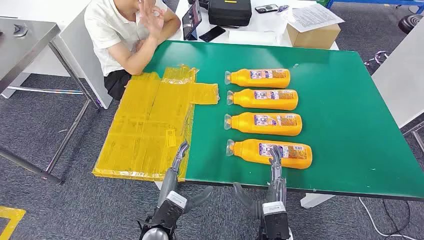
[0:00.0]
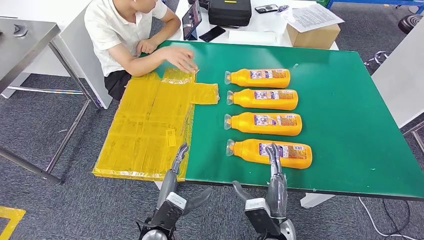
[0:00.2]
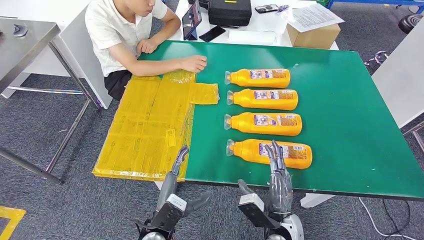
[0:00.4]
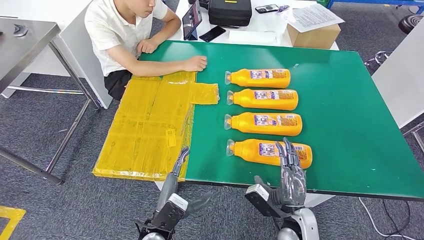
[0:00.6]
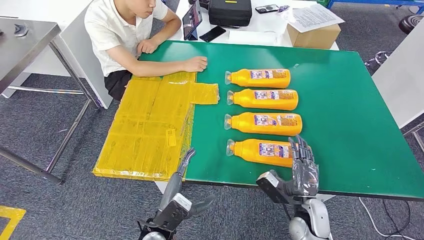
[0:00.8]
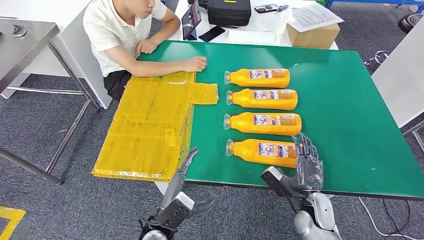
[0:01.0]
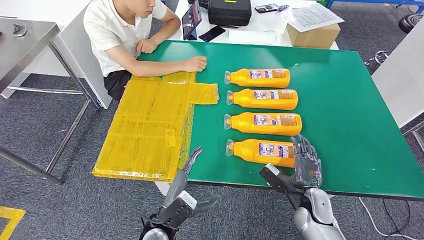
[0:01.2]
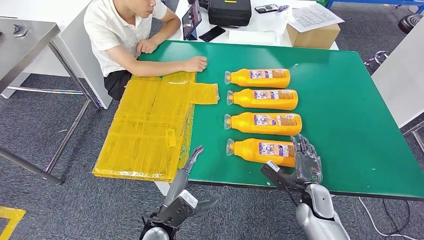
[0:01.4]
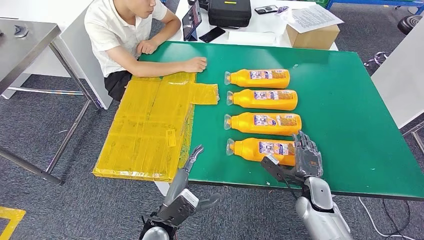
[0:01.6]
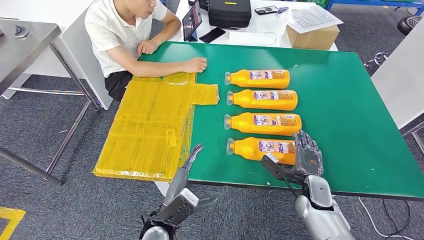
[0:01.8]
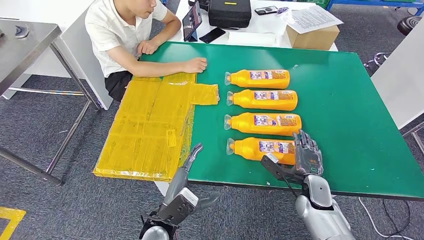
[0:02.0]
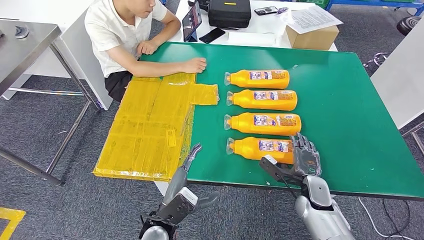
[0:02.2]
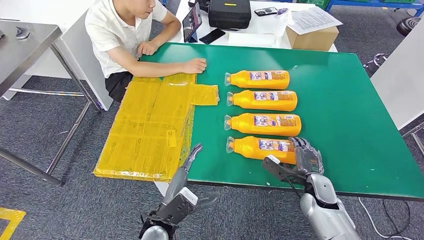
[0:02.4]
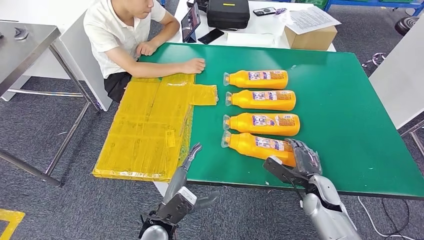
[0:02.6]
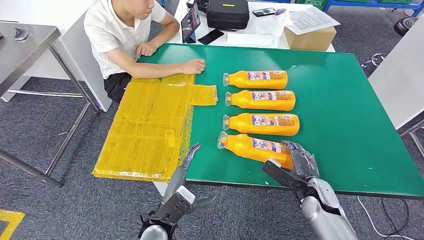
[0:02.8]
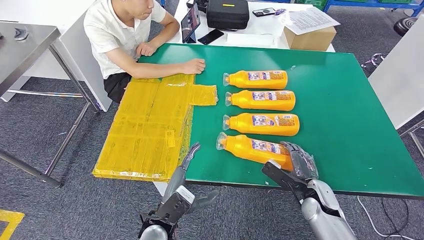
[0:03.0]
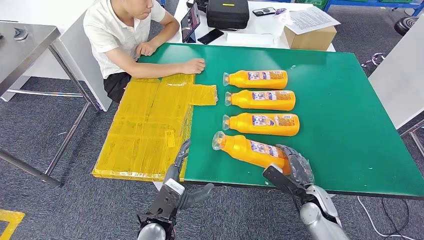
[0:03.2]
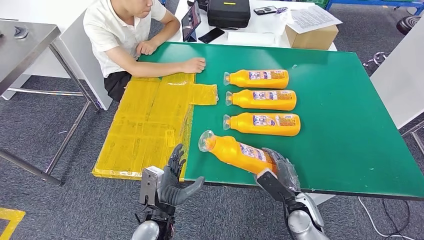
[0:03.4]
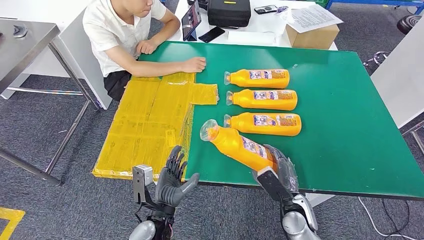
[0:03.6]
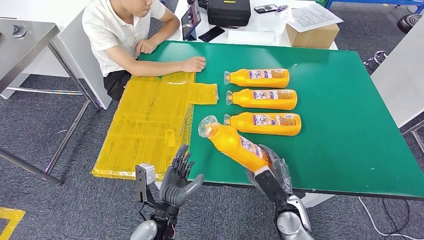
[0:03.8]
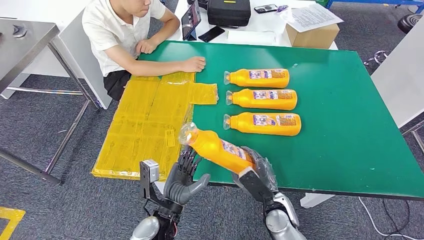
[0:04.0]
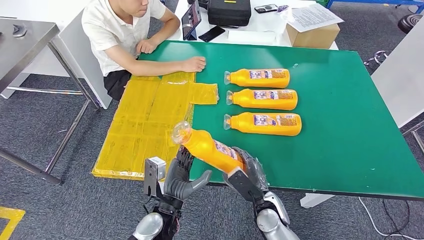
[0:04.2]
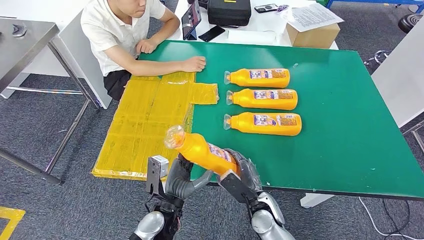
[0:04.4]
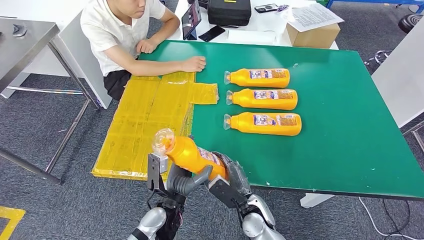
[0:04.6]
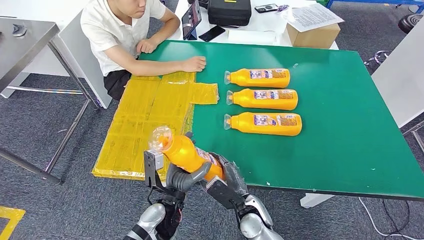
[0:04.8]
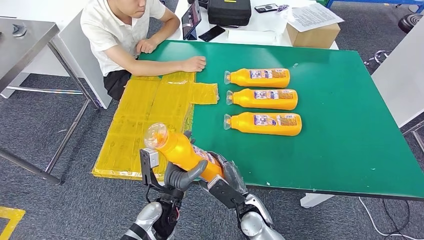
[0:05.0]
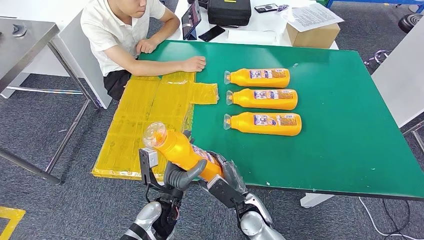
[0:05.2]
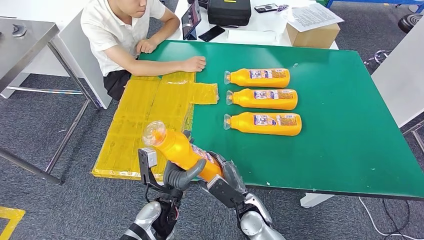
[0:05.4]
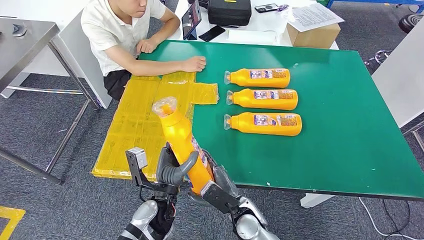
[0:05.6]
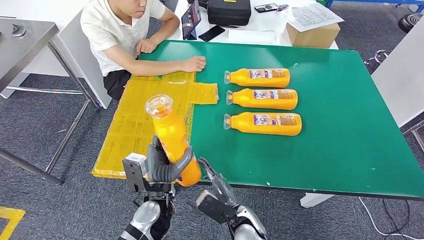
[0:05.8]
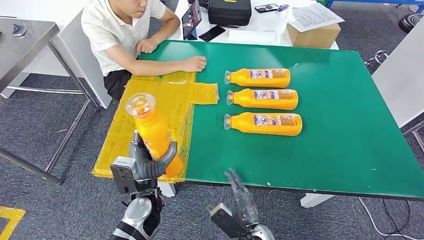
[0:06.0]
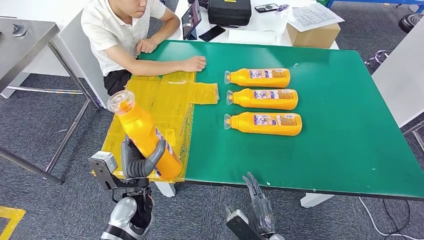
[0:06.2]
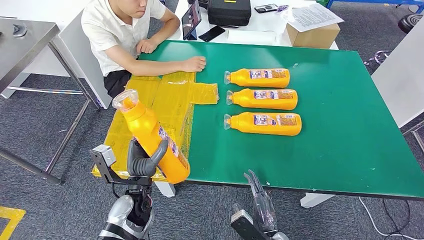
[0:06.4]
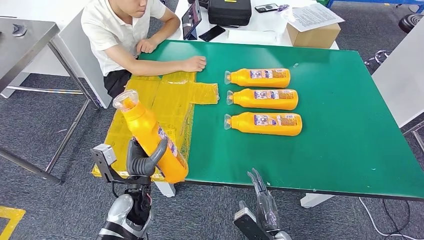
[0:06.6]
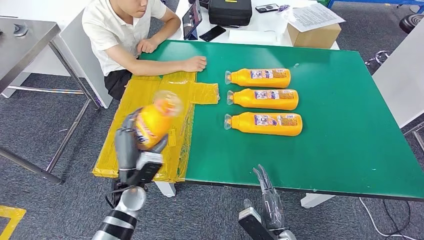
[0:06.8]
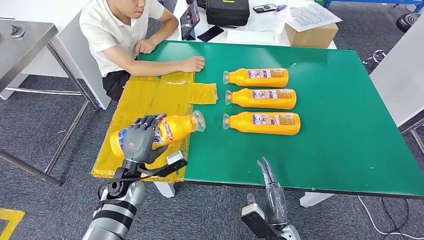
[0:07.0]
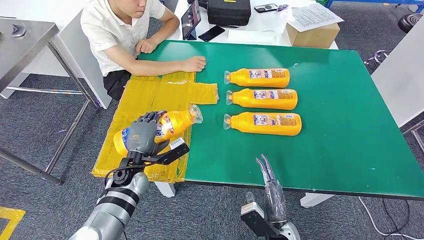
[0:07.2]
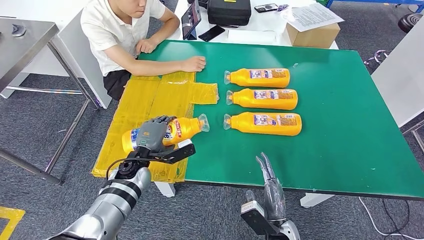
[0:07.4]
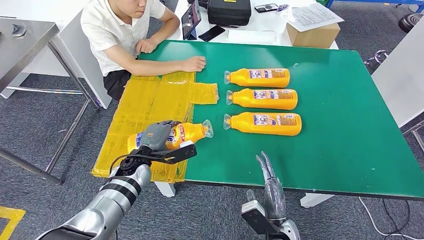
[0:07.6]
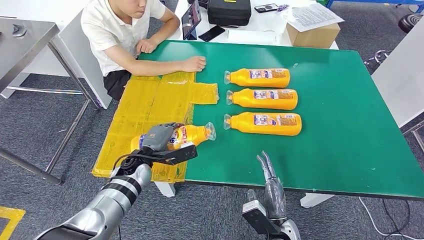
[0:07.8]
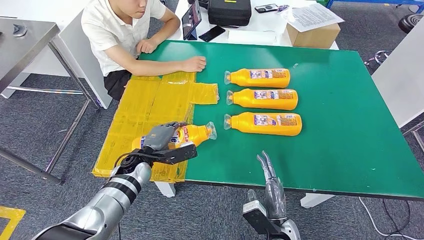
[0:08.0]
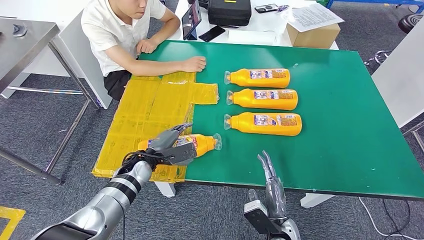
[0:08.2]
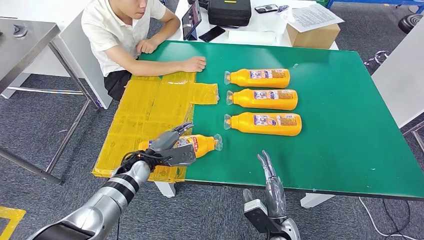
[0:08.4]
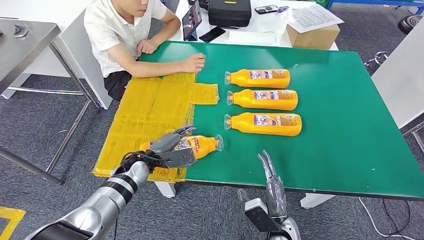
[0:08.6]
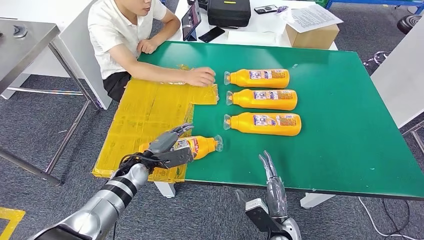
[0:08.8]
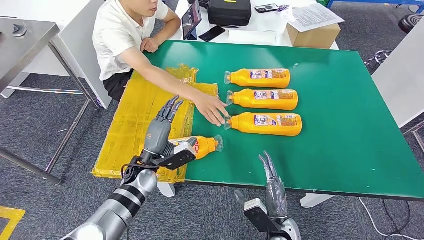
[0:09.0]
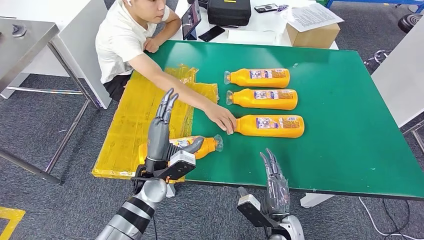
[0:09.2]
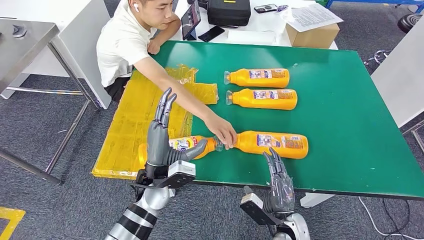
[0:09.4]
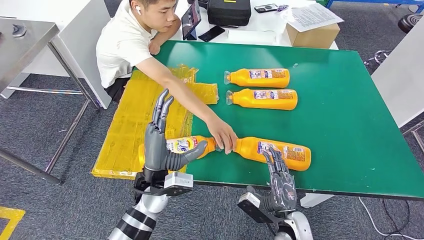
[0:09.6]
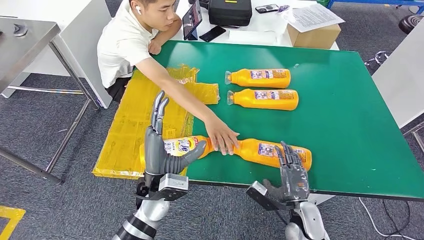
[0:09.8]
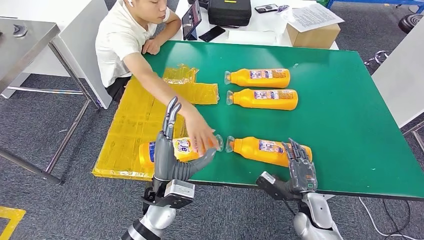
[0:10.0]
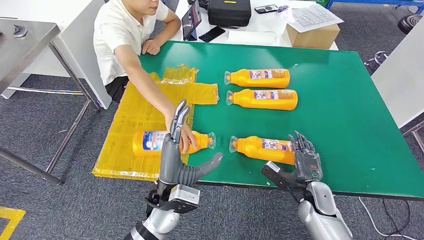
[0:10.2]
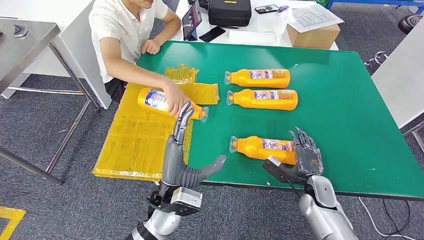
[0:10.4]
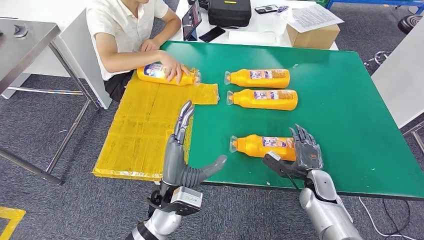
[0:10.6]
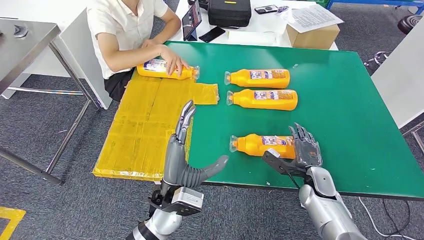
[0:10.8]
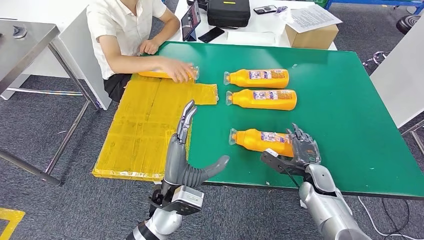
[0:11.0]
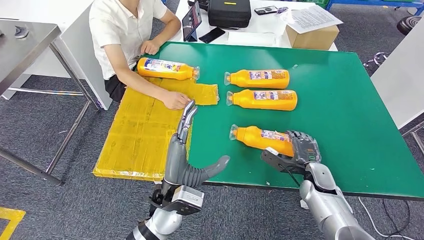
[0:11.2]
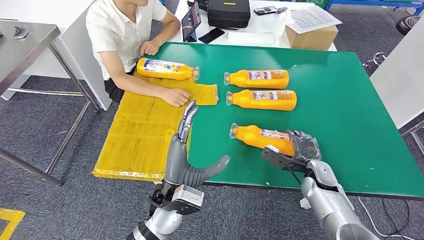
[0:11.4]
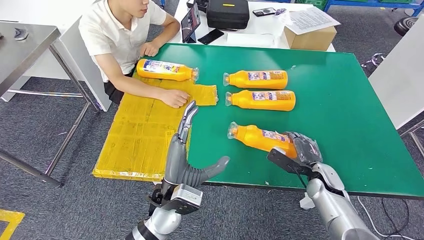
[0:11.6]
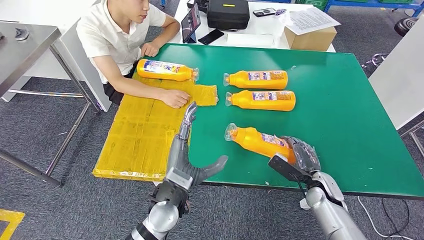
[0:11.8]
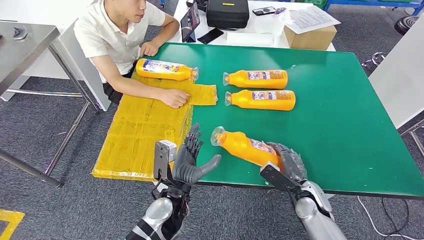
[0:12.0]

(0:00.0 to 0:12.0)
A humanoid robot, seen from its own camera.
Step, 0:00.0 - 0:04.8: Take the fast-moving consumer goods bottle from the table.
Step, 0:05.0 - 0:08.8: Flip the fast-moving consumer goods bottle to the front side.
0:04.4 - 0:06.0: The right hand heads backward, covering about 10 cm. Meanwhile the left hand moves about 5 cm.
0:06.0 - 0:07.6: The left hand travels forward and to the left by approximately 10 cm. Meanwhile the right hand goes approximately 5 cm to the right.

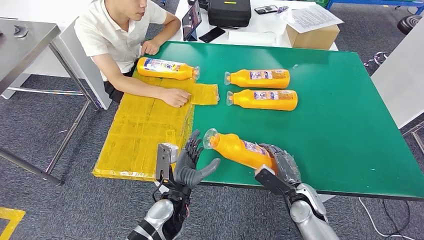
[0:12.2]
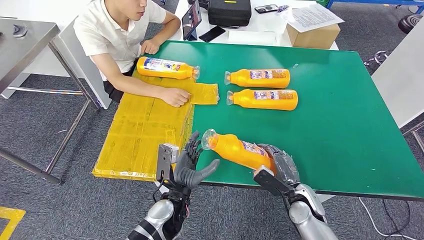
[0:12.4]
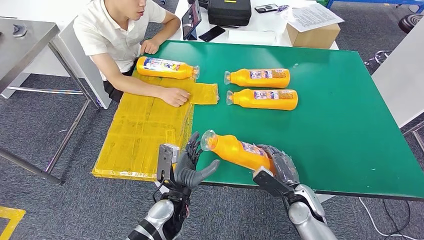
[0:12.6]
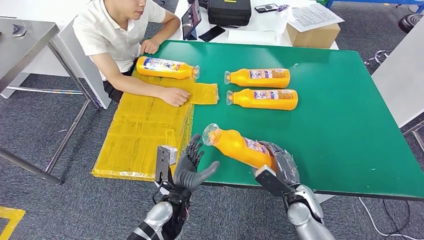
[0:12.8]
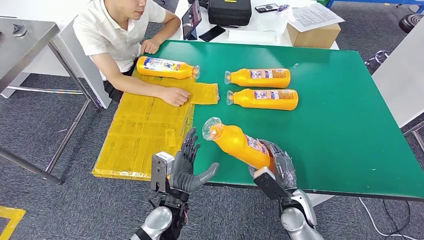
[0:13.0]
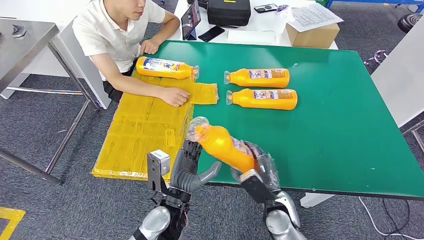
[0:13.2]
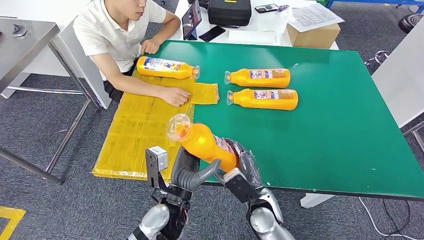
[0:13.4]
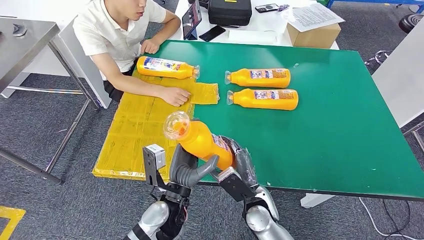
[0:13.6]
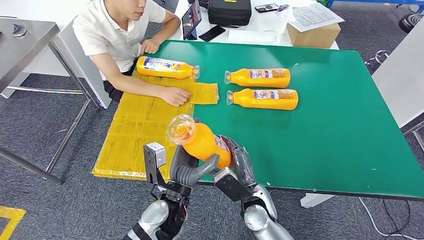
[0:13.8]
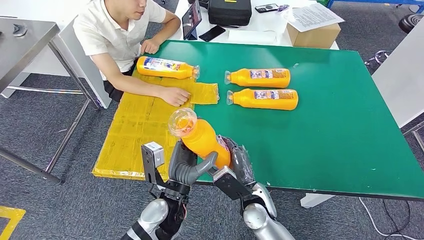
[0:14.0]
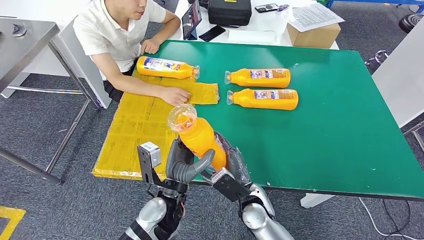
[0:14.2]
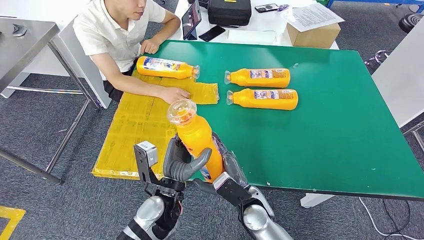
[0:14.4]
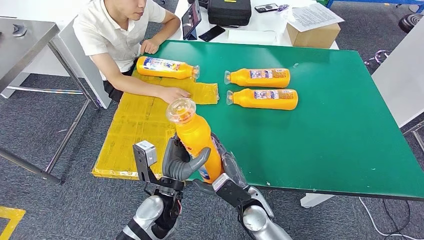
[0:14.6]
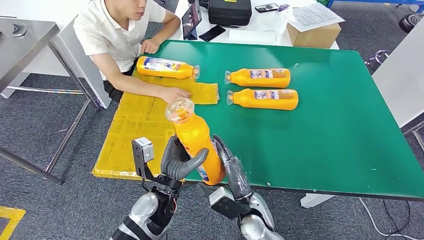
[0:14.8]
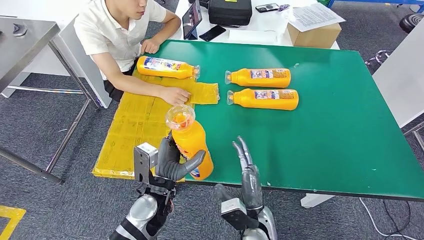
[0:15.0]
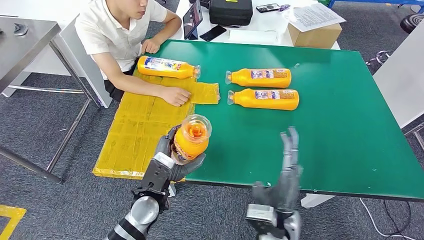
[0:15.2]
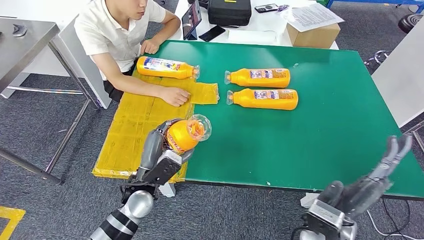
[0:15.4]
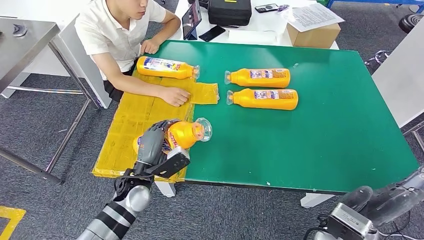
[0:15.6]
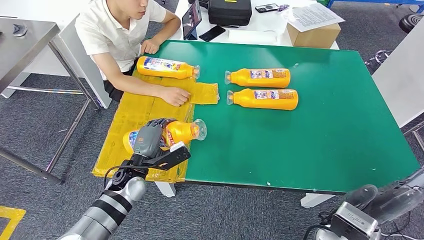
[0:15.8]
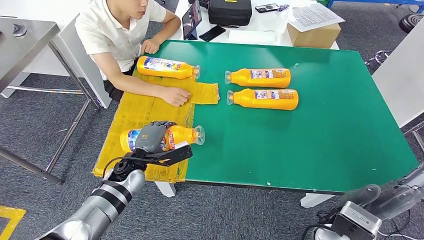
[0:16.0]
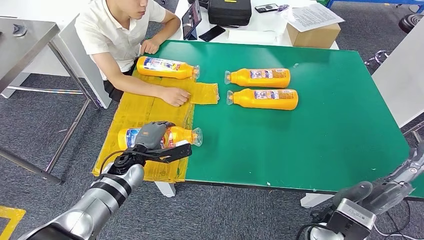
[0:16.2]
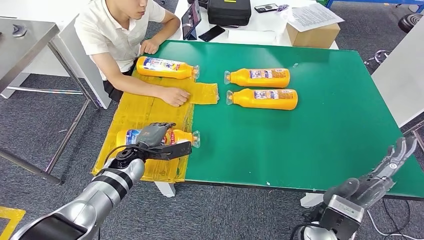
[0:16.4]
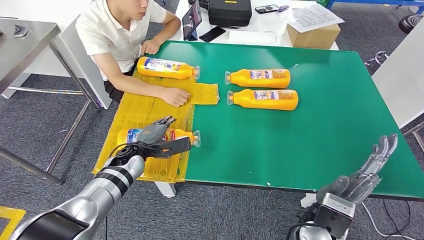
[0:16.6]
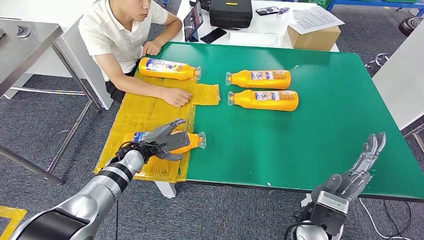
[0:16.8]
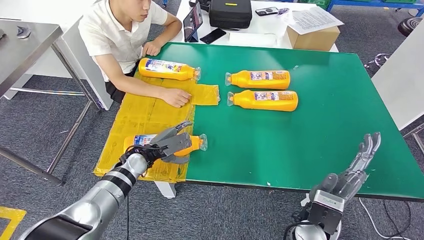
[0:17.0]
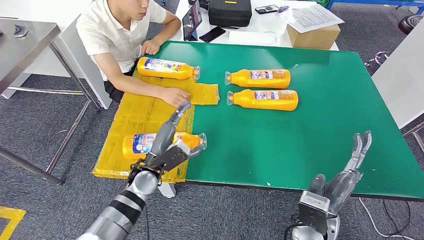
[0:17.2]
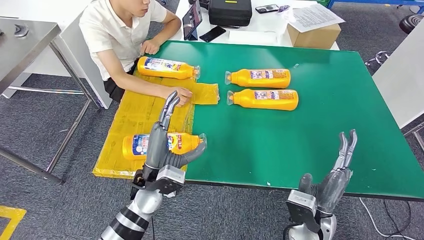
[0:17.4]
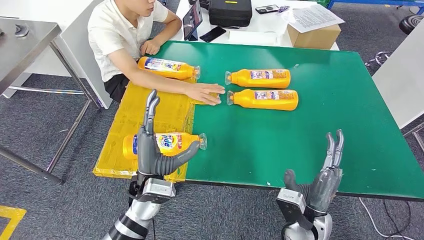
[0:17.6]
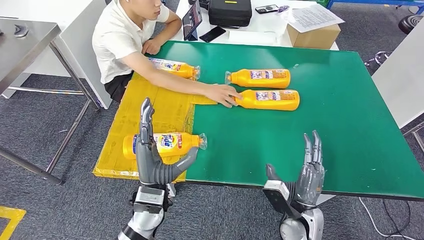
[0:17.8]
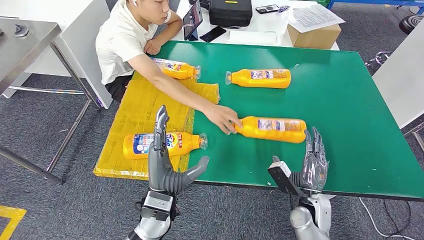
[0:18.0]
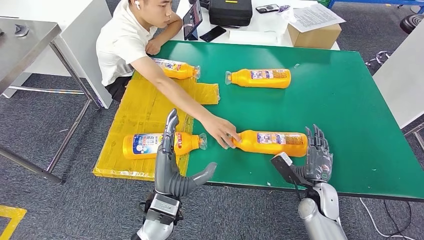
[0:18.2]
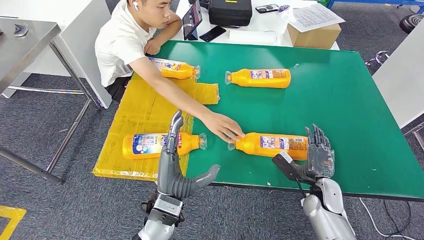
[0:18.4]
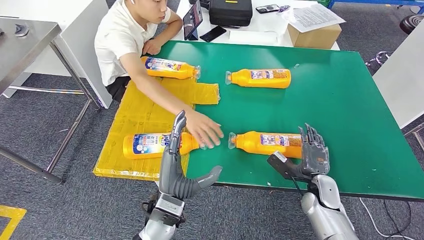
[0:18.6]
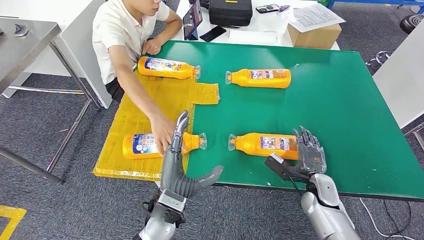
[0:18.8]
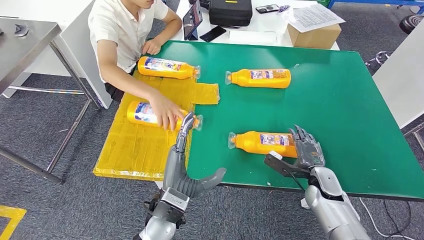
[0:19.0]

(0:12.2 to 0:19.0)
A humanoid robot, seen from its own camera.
Step, 0:13.8 - 0:17.0: Flip the fast-moving consumer goods bottle to the front side.
0:12.2 - 0:13.6: The right hand shifts some 15 cm to the left.
0:13.6 - 0:15.0: The hands make only small movements.
0:15.0 - 0:16.2: The left hand travels forward and to the left by approximately 15 cm; the right hand moves to the right and upward, approximately 15 cm.
